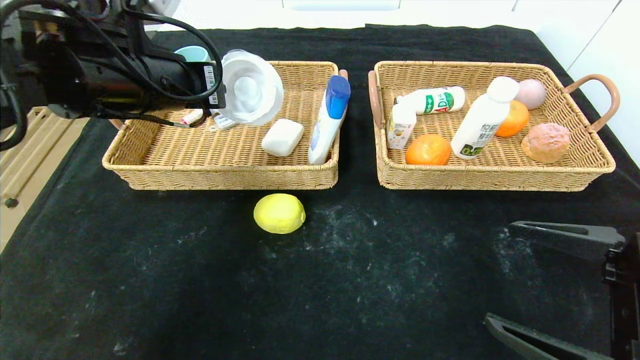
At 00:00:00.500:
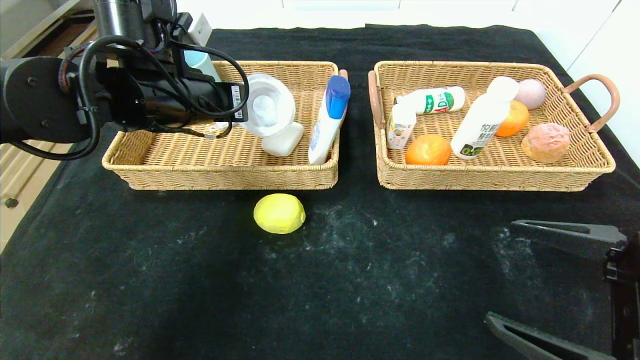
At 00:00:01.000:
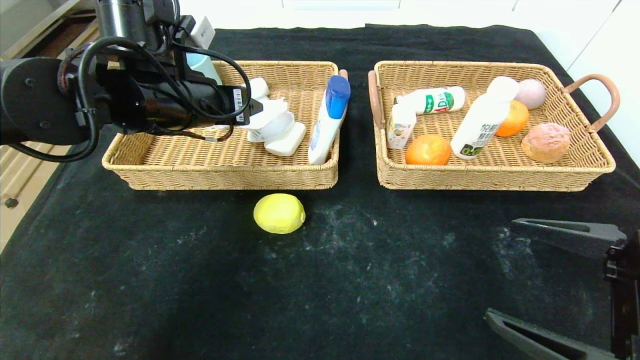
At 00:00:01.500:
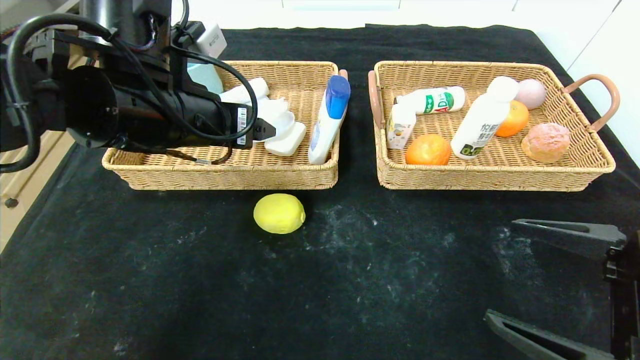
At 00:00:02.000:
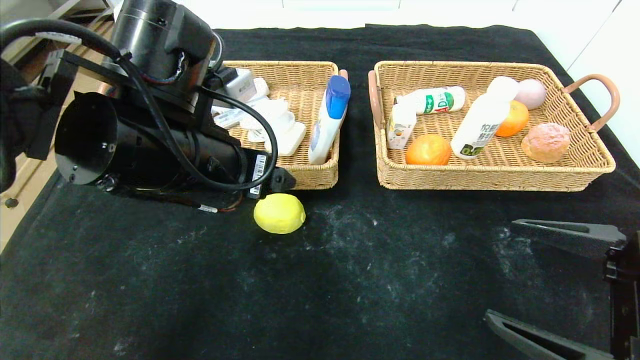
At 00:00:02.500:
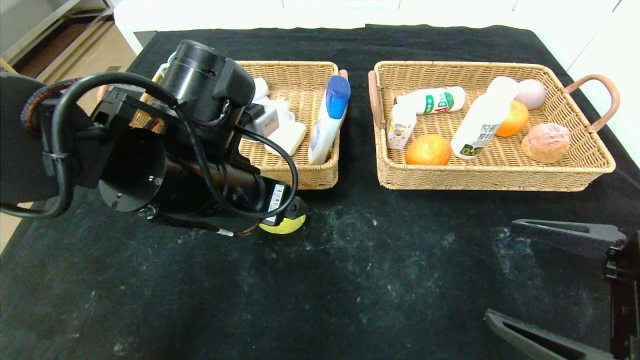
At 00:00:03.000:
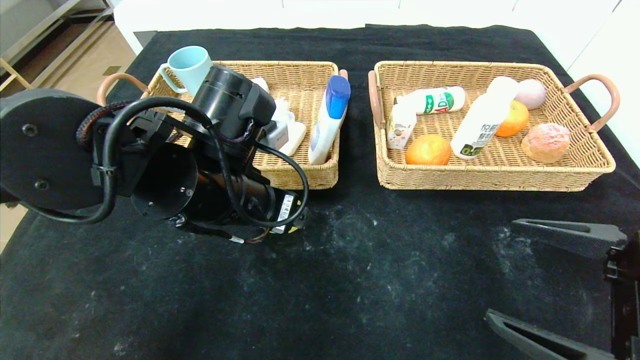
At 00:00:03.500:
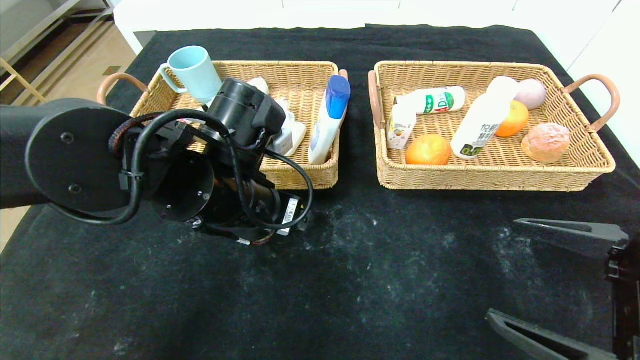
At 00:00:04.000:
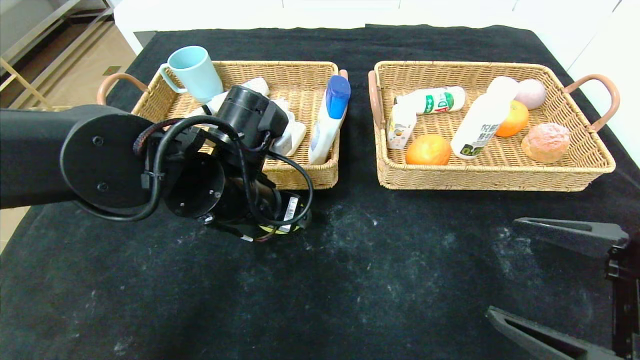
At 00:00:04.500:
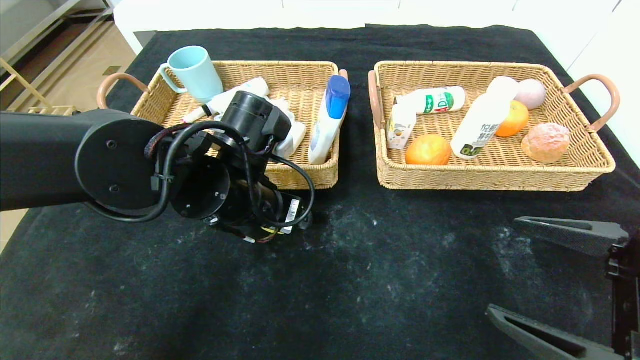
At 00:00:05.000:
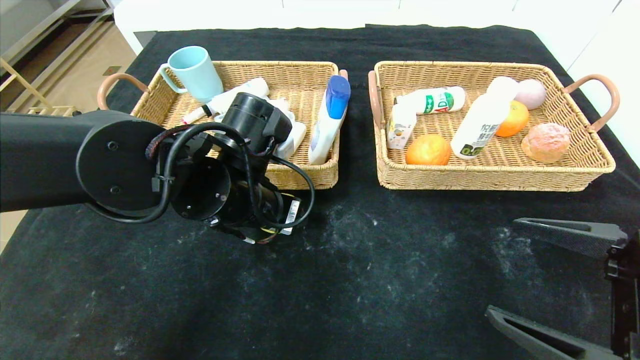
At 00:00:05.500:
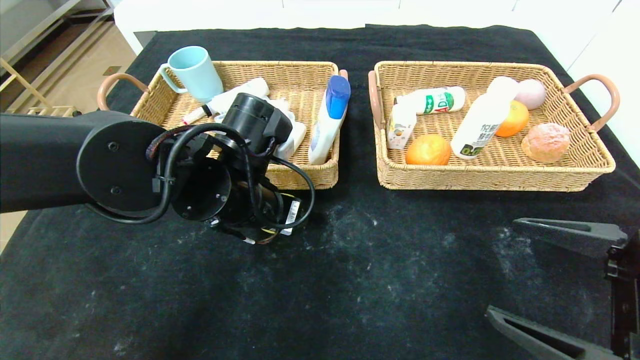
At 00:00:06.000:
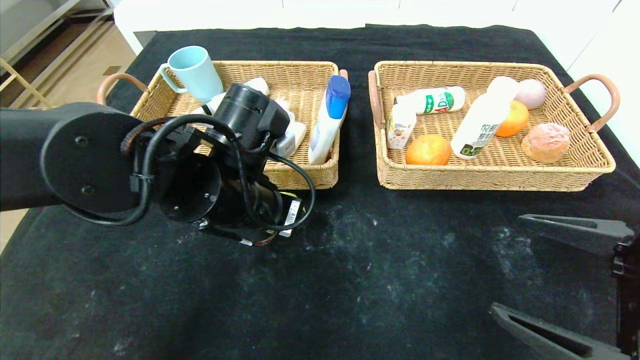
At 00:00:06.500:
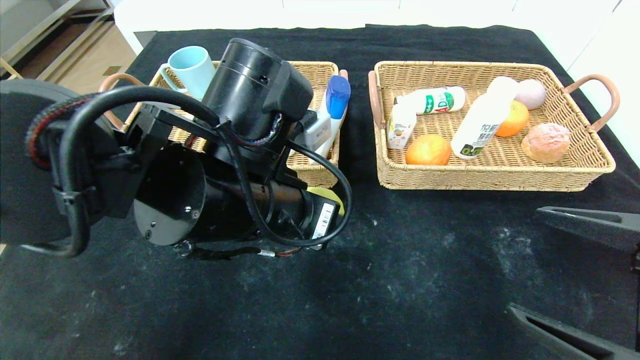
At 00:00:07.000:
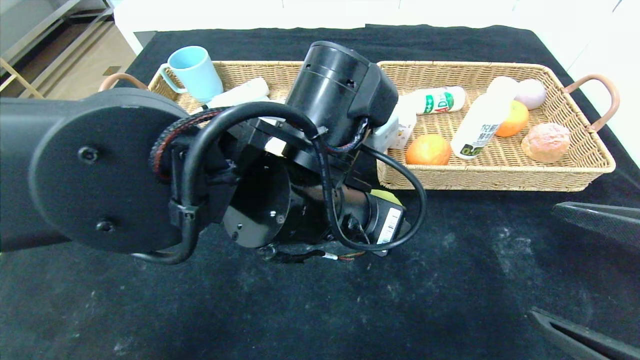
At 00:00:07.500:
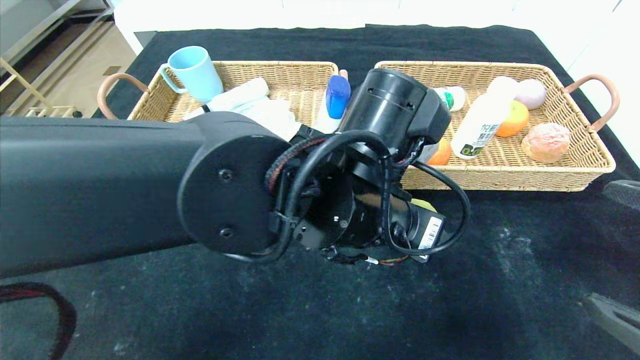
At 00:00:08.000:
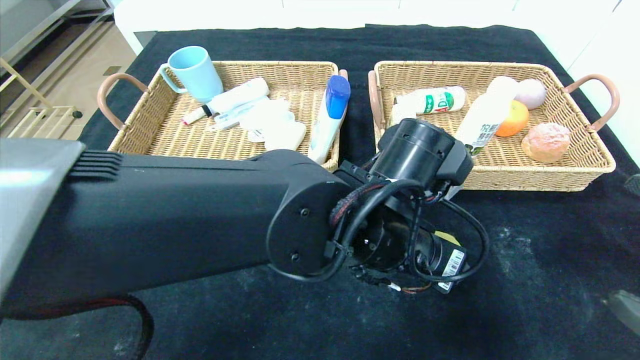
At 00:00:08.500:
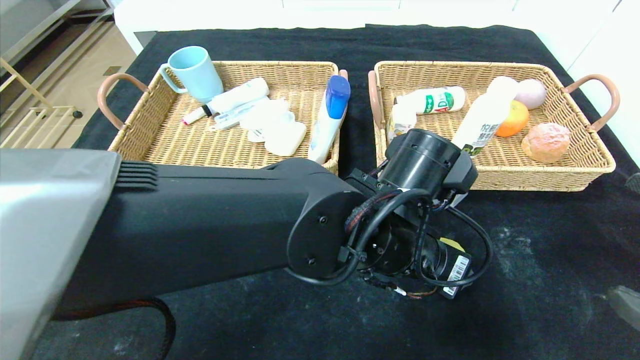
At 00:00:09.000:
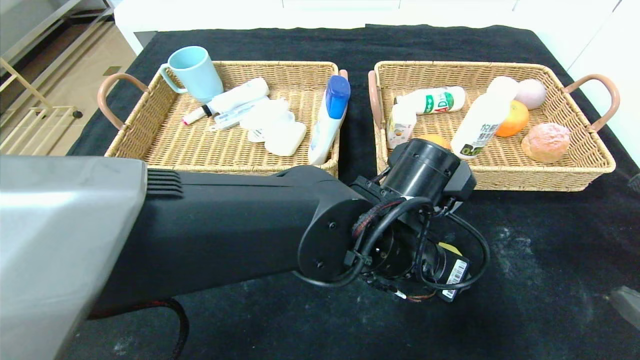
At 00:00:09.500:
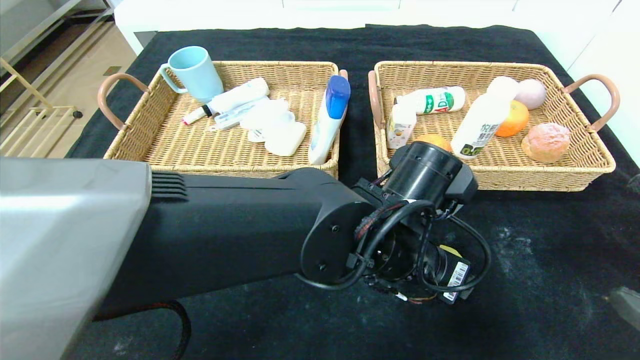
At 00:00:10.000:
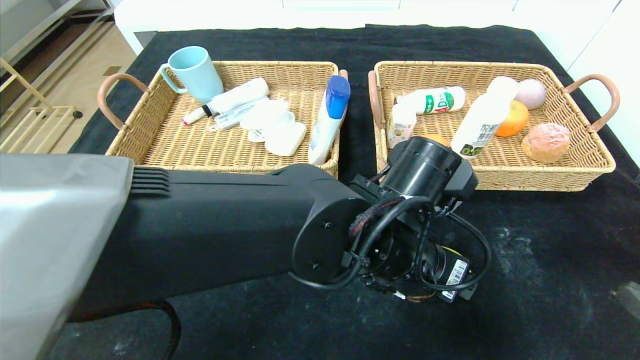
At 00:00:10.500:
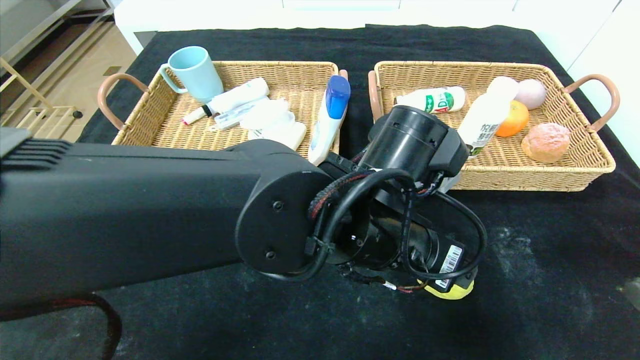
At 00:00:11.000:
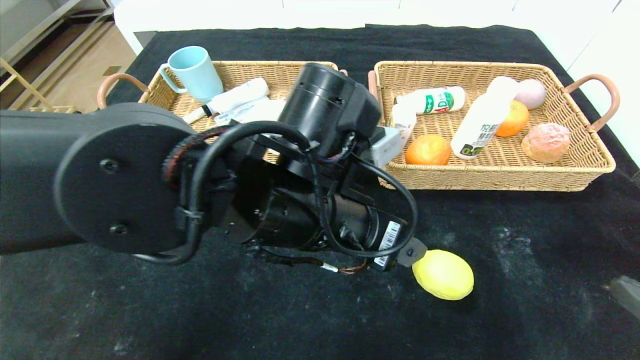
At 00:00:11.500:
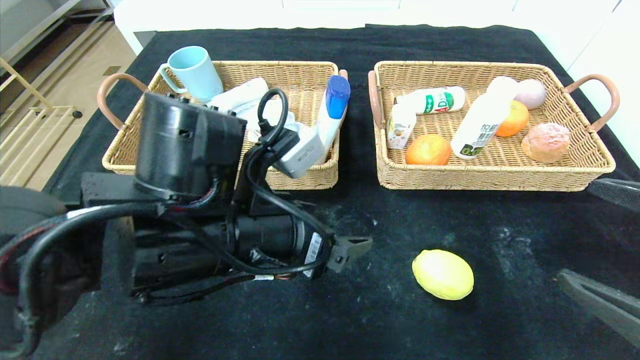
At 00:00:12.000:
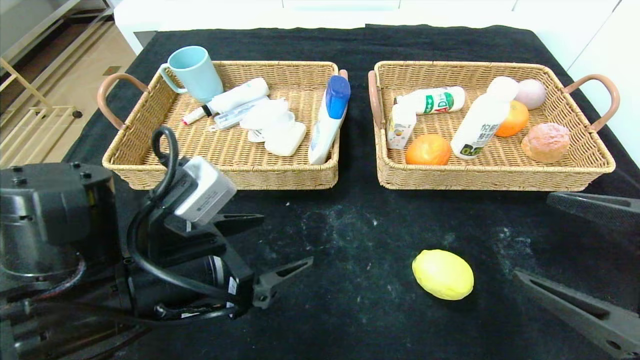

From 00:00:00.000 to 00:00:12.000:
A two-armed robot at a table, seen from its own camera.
Step, from 00:00:01.000 to 00:00:10.000: Place the lemon and put it in the center of the table.
From 00:00:00.000 to 00:00:02.000: The left gripper moves backward and to the right, approximately 10 cm, and opens up.
From 00:00:02.000 to 00:00:04.000: The left gripper shifts approximately 5 cm downward.
From 00:00:04.000 to 00:00:06.000: The grippers stay close to where they were, moving slightly.
From 00:00:06.000 to 00:00:08.000: The left gripper moves to the right, some 15 cm. Meanwhile the right gripper changes place by roughly 5 cm.
From 00:00:08.000 to 00:00:10.000: The grippers move only a little.
From 00:00:10.000 to 00:00:12.000: The left gripper goes some 20 cm to the left.

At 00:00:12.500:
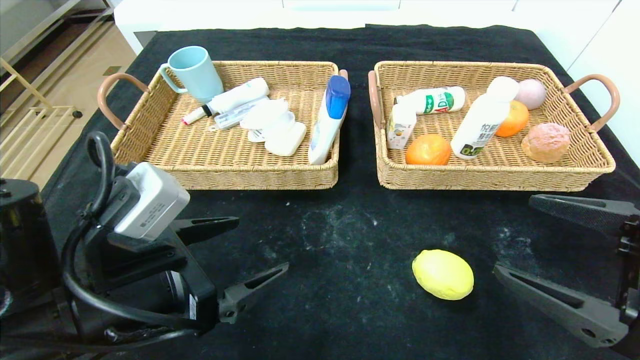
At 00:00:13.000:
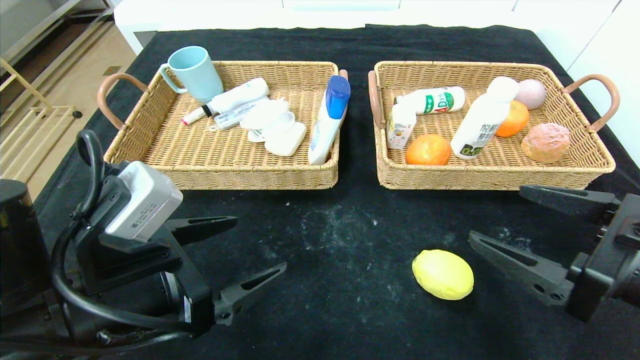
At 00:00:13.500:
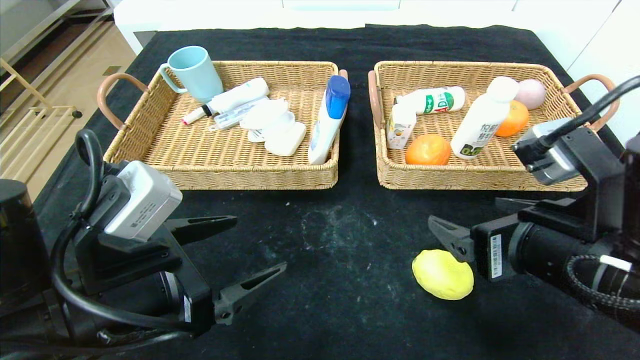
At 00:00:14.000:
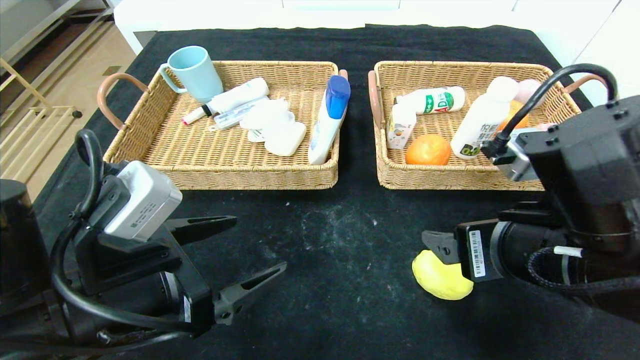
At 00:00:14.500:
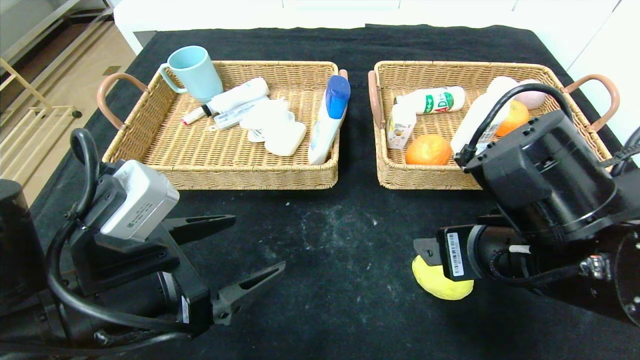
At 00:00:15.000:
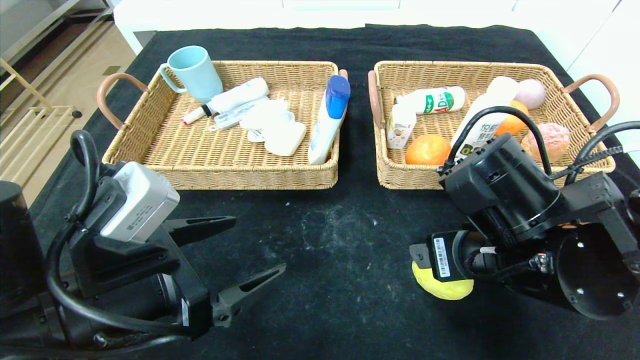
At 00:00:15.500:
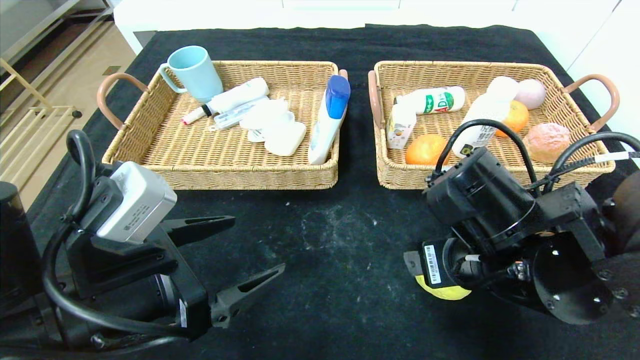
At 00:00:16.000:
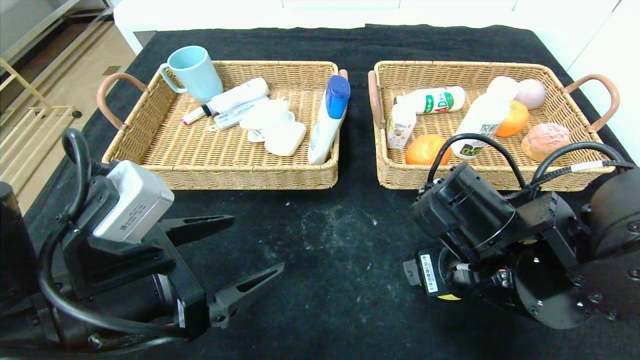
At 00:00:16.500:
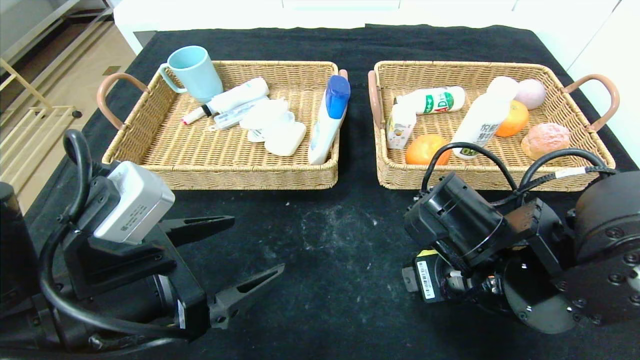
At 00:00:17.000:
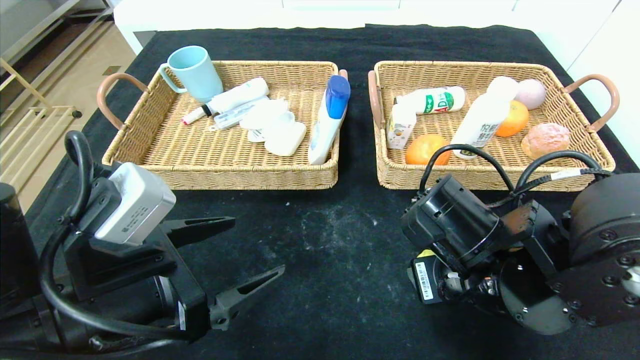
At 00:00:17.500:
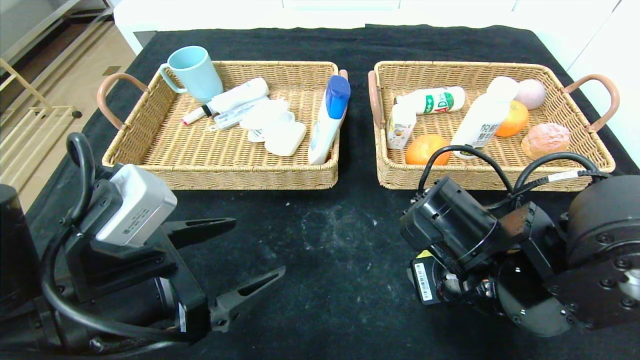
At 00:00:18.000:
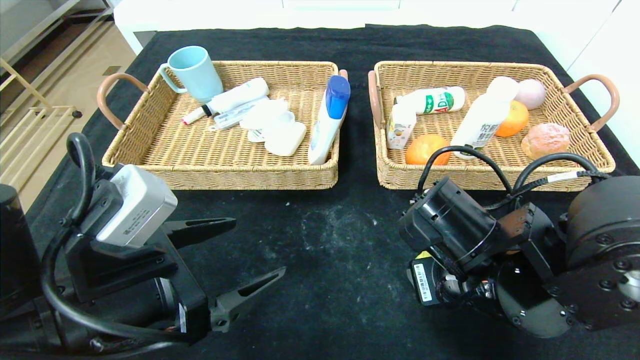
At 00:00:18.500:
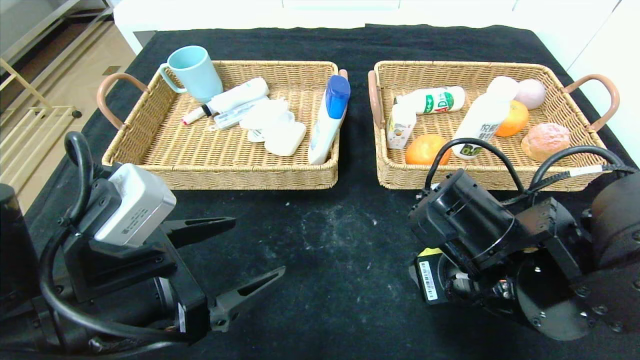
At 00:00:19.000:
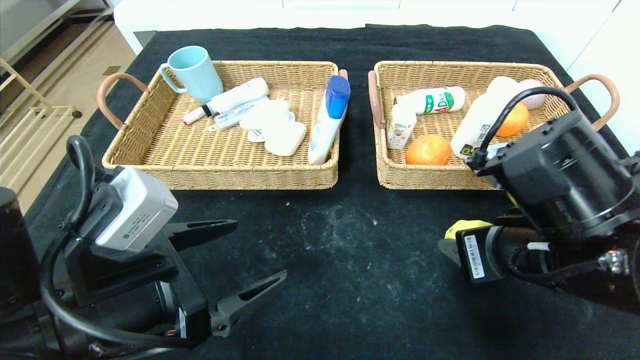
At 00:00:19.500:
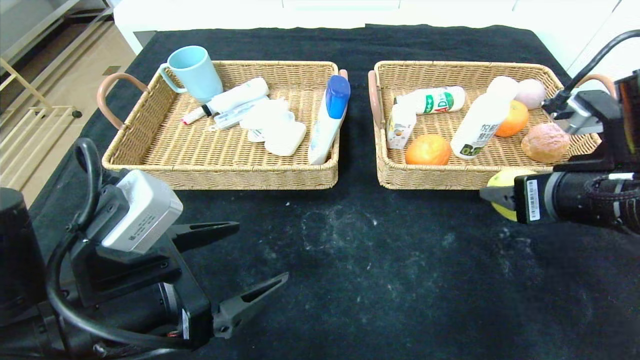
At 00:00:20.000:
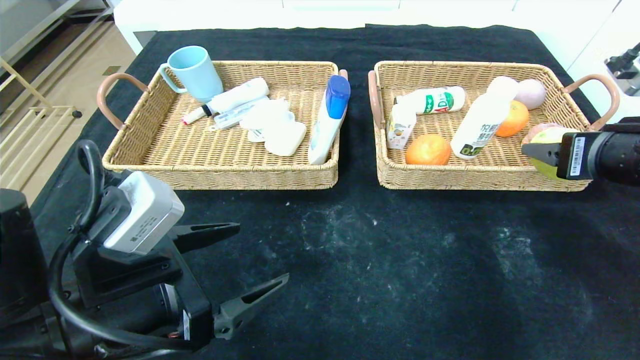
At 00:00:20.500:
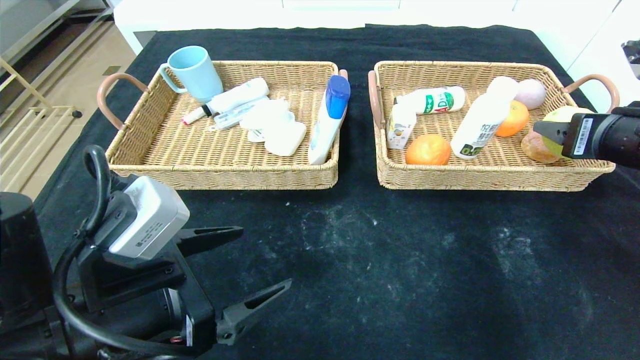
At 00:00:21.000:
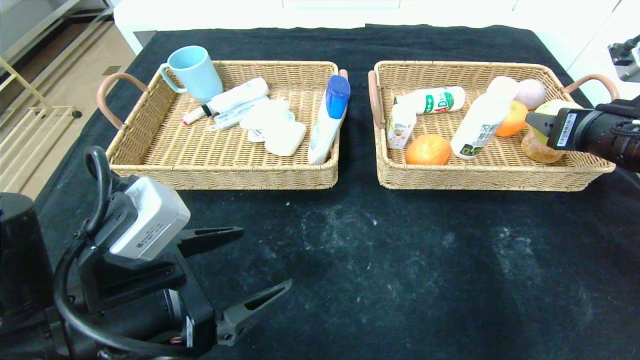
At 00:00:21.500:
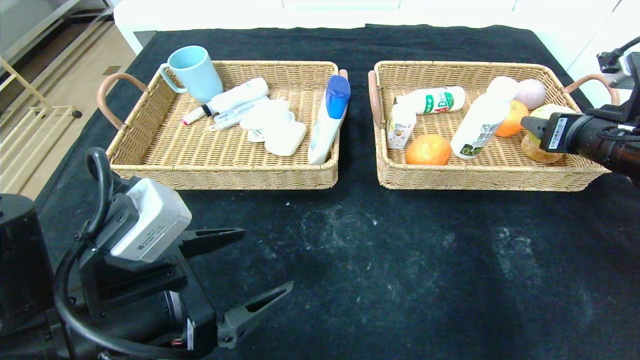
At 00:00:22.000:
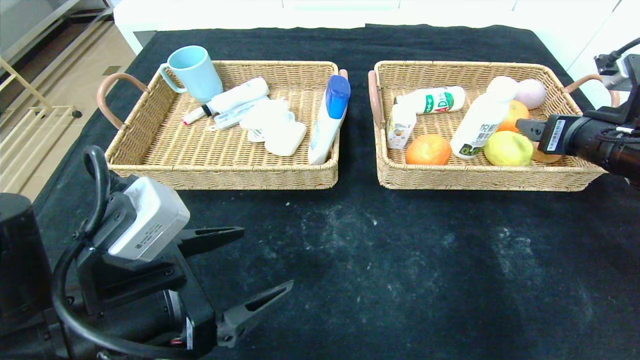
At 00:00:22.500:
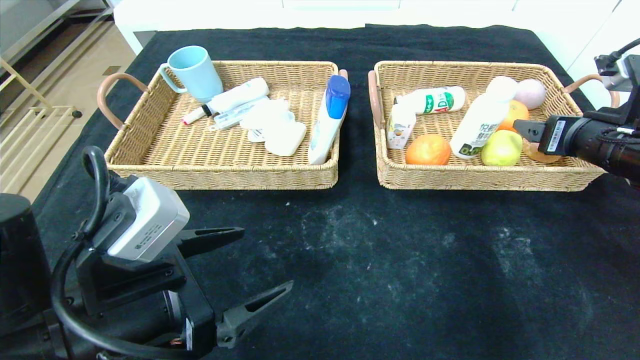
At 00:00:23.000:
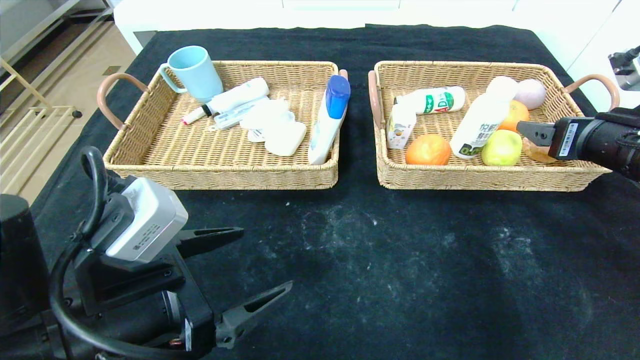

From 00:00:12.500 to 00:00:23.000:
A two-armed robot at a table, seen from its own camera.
Step, from 00:00:12.500 to 00:00:22.000: Grasp the lemon and put it in the right basket.
From 00:00:12.500 to 00:00:14.500: The right gripper is displaced to the left and forward by roughly 15 cm.
From 00:00:14.500 to 00:00:16.500: The right gripper moves some 5 cm.
From 00:00:16.500 to 00:00:19.000: The right gripper ends up some 5 cm from where it was, and closes up.
From 00:00:19.000 to 00:00:21.000: The right gripper is displaced to the right and forward by some 20 cm.
From 00:00:21.000 to 00:00:23.000: The right gripper opens up.
